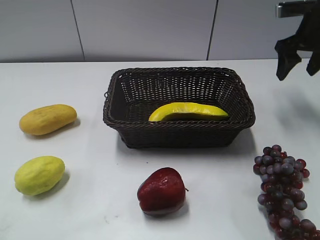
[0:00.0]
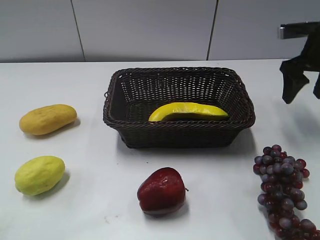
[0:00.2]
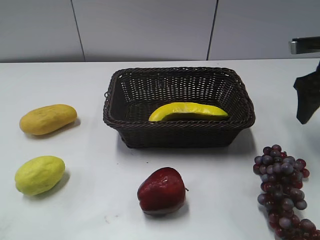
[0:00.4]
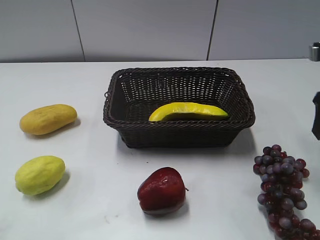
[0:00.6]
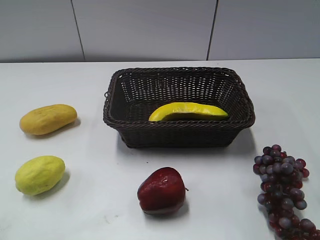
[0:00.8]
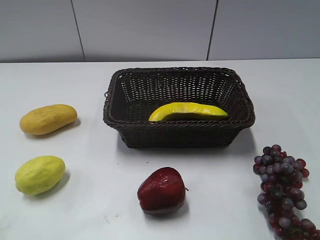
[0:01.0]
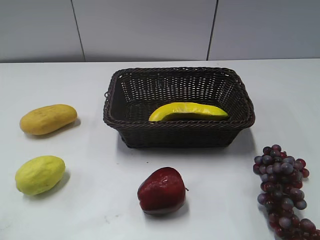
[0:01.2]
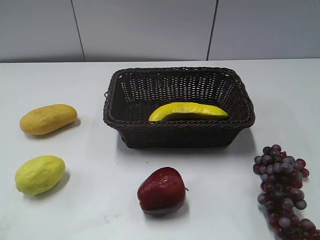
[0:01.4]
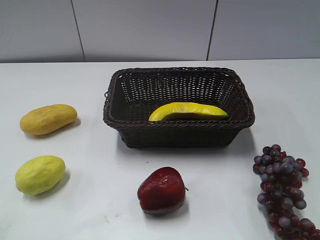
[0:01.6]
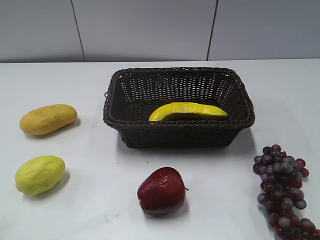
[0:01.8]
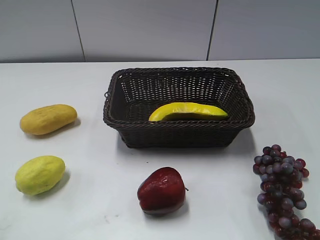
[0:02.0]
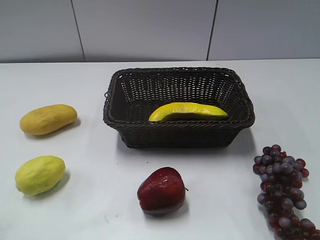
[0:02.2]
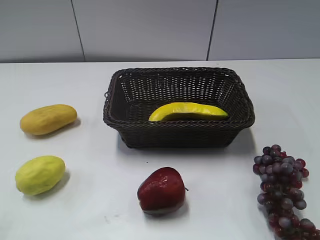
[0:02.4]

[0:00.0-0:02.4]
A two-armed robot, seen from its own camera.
0:00.0 to 0:01.2: The right gripper moves backward, about 30 cm.
